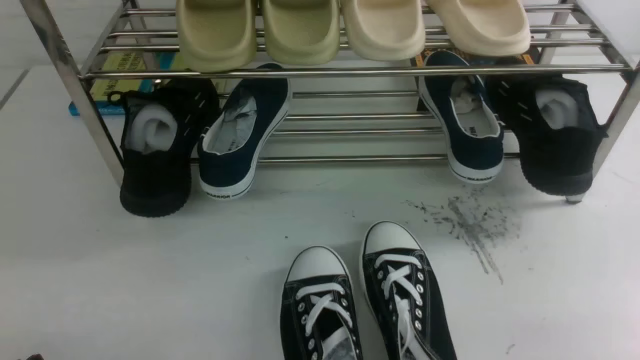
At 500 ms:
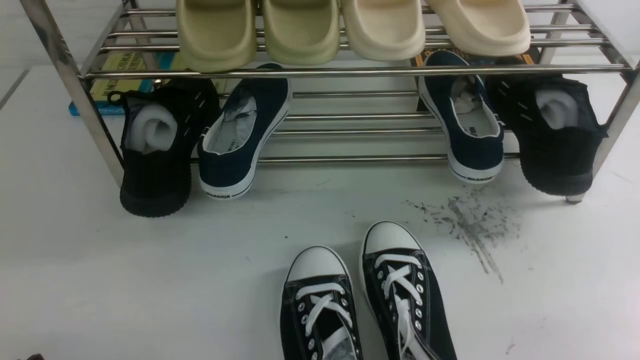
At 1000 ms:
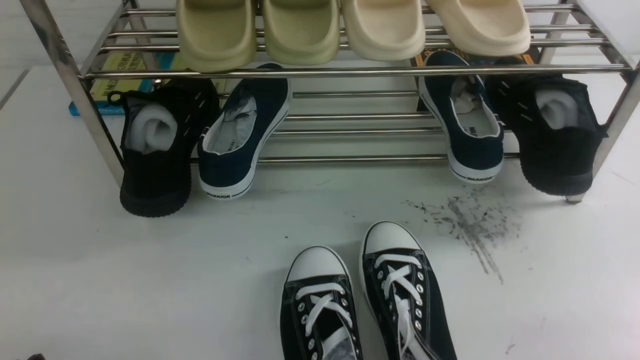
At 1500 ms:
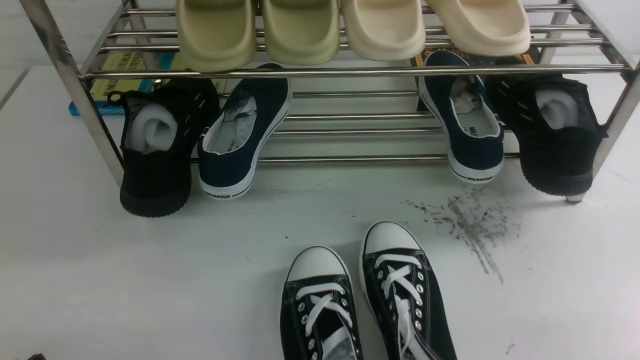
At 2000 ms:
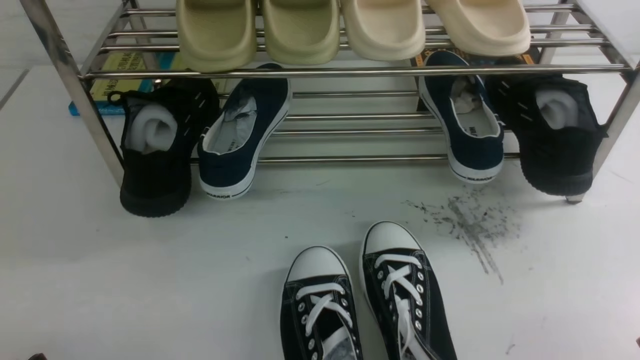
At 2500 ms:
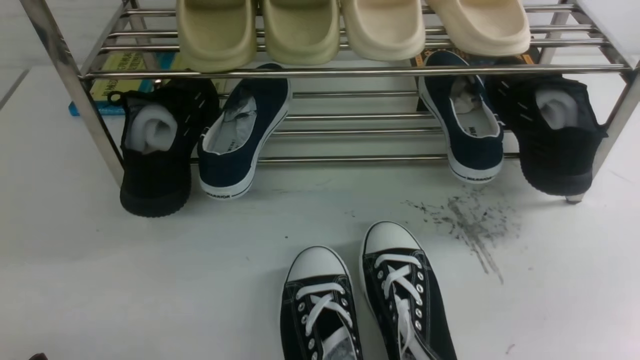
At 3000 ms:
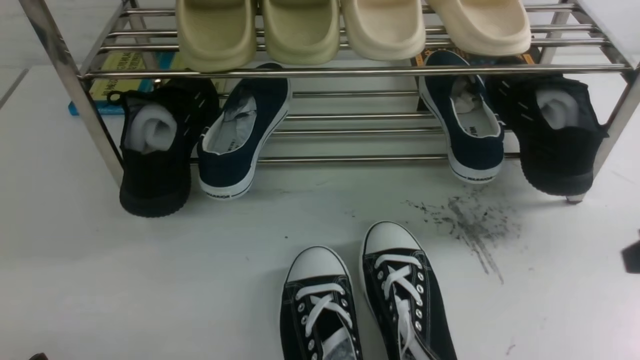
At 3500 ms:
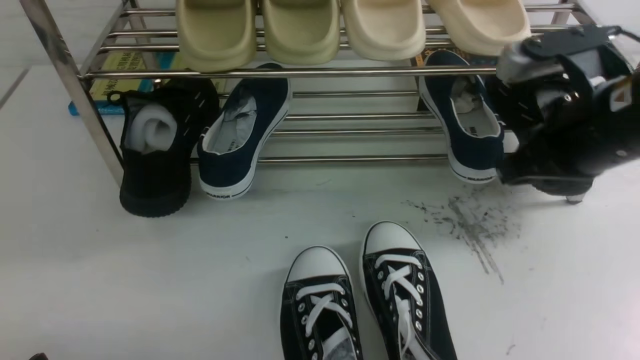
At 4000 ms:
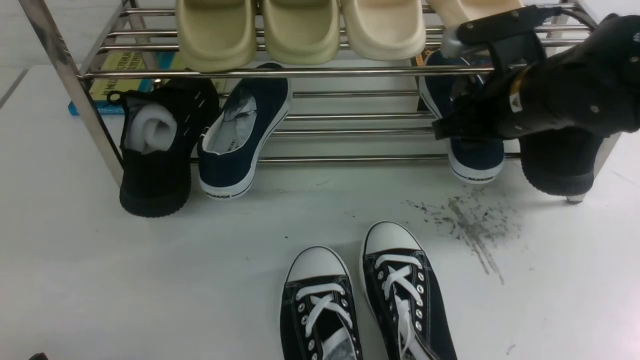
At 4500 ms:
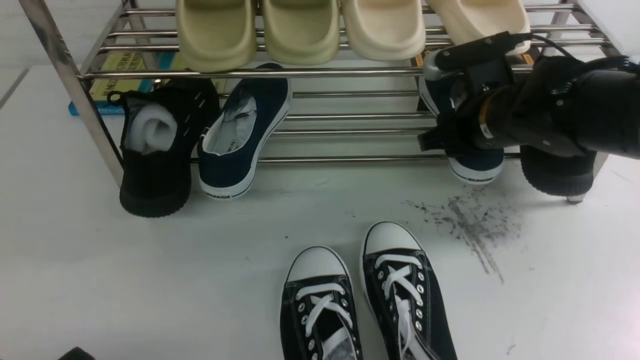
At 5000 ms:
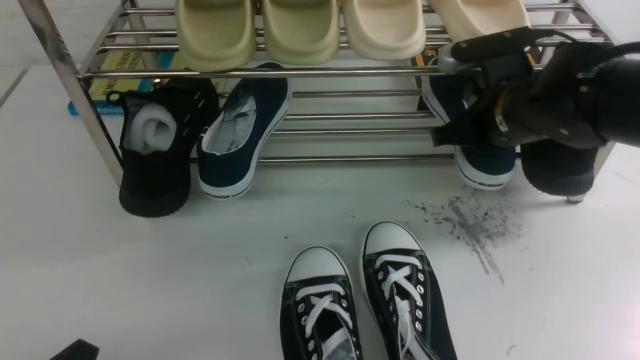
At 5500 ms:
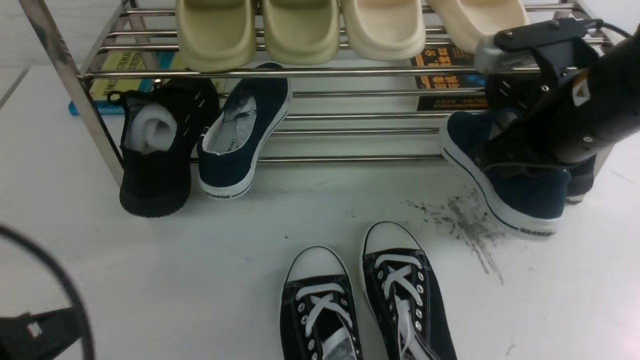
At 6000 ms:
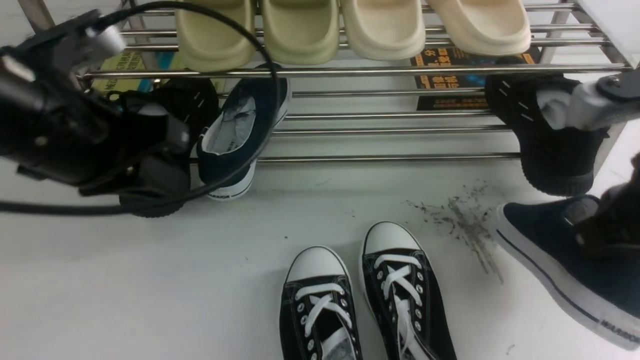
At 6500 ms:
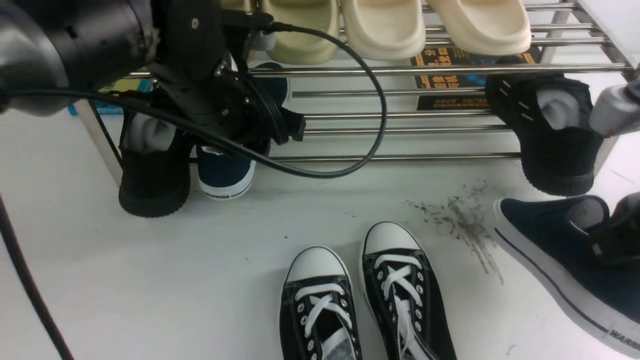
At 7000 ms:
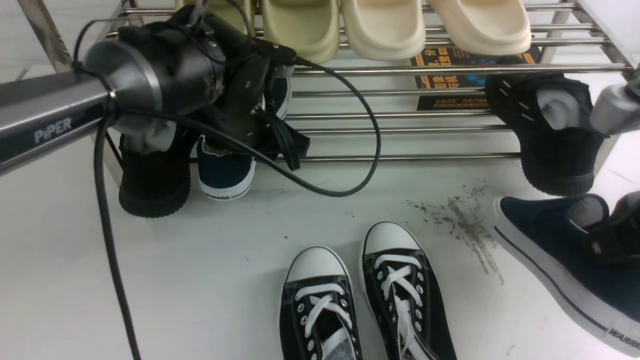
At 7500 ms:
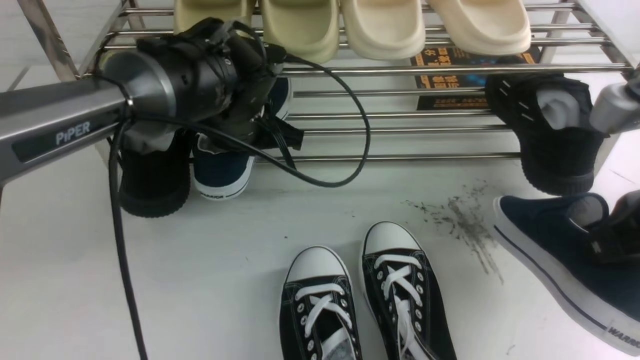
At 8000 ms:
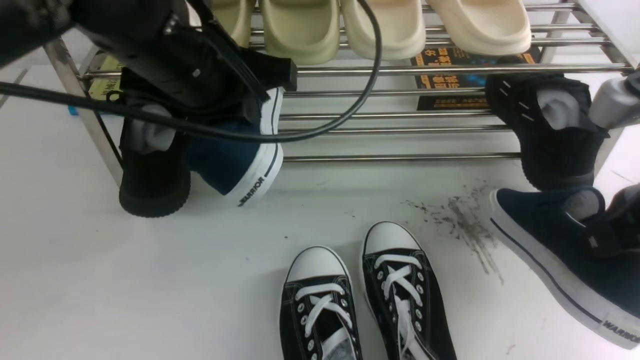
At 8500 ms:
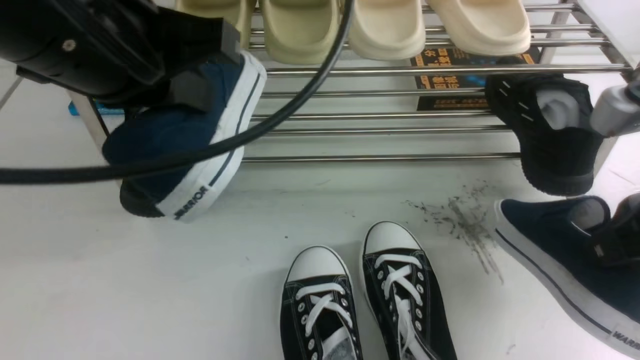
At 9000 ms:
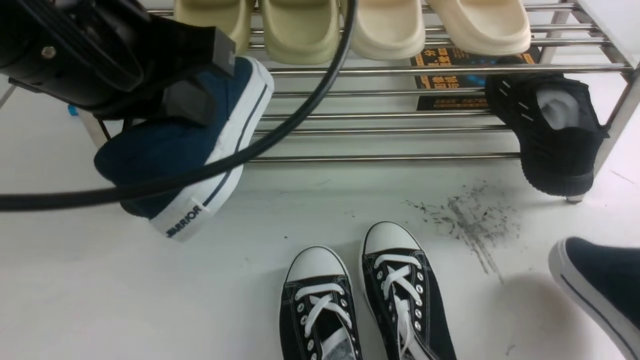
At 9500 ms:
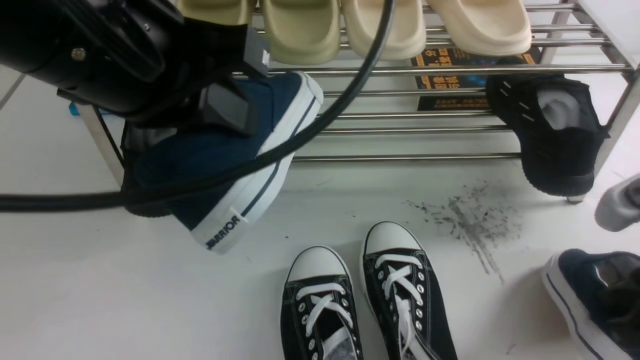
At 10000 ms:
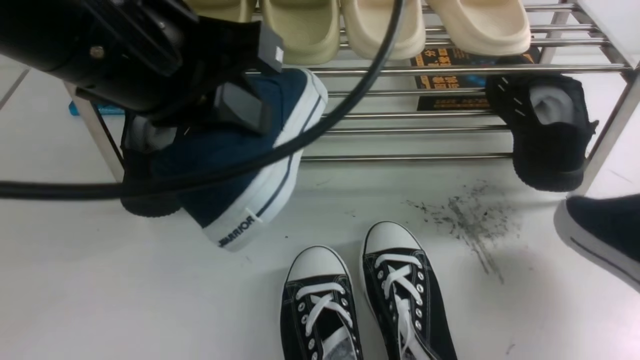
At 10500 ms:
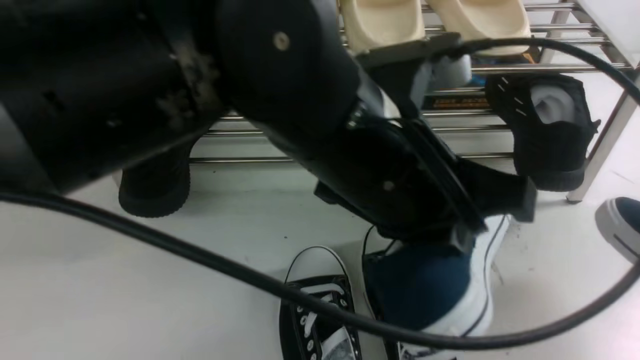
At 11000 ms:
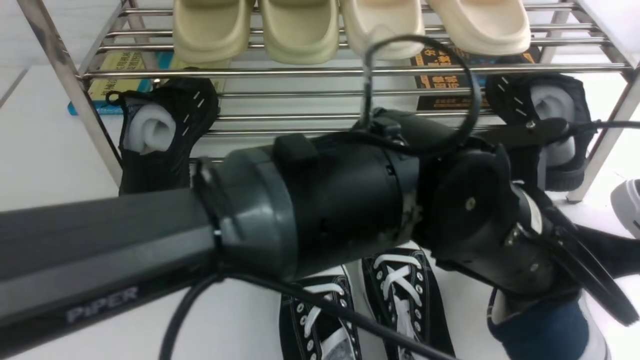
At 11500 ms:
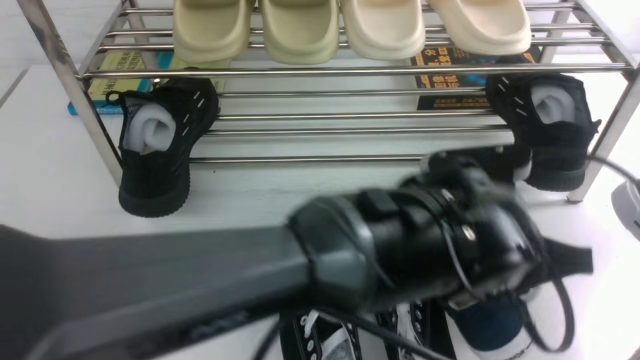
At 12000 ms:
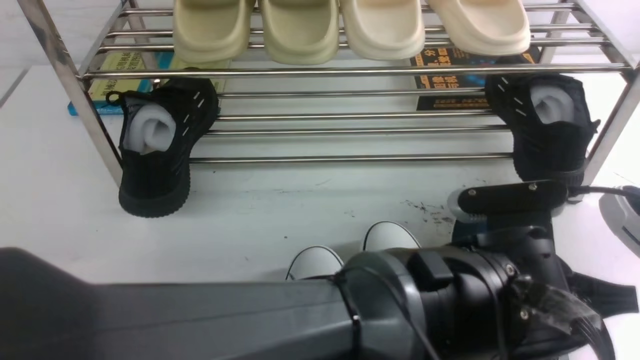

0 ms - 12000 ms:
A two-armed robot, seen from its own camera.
Step, 0 ms - 5000 ms: use the right arm to clamp a shoe on the right side of the shoe rack.
Step, 5500 ms - 8000 ms: use the left arm to clamp a shoe on the left side of the shoe rack.
2000 ms - 4000 ms: The right gripper goes roughly 30 cm forward and to the left, and opens up.
4000 ms - 6000 ms: The right gripper shifts about 15 cm backward and upward, and closes its fingers. The left gripper shifts roughly 30 cm forward, upward and to the right, and closes and opens again.
6000 ms - 8000 ms: The left gripper goes about 10 cm to the right, travels forward and back again, some 15 cm each way, and closes up.
8000 ms - 10000 ms: The left gripper is displaced backward by about 10 cm.
10000 ms - 12000 ms: The right gripper shifts about 10 cm backward. The left gripper goes about 30 cm to the right and downward.

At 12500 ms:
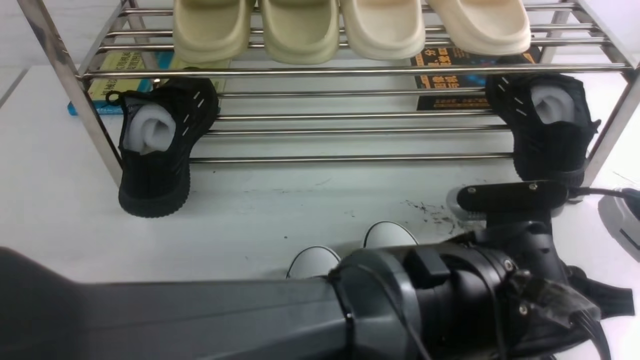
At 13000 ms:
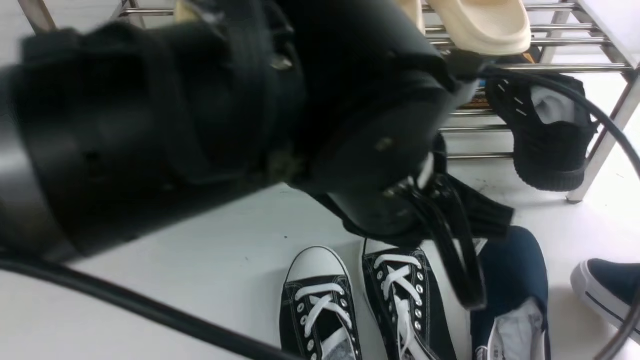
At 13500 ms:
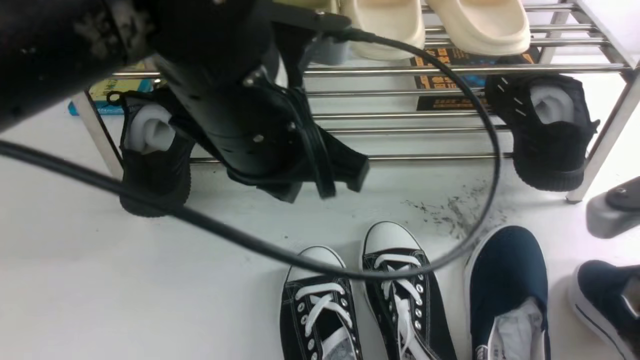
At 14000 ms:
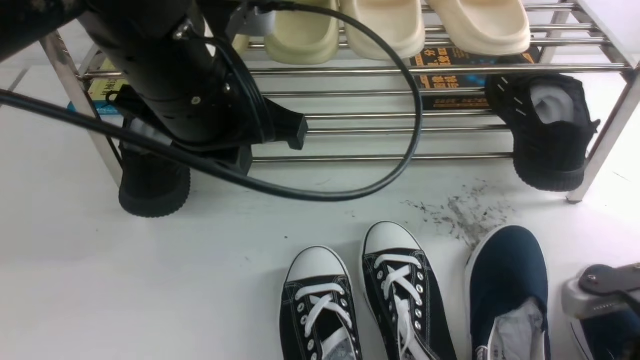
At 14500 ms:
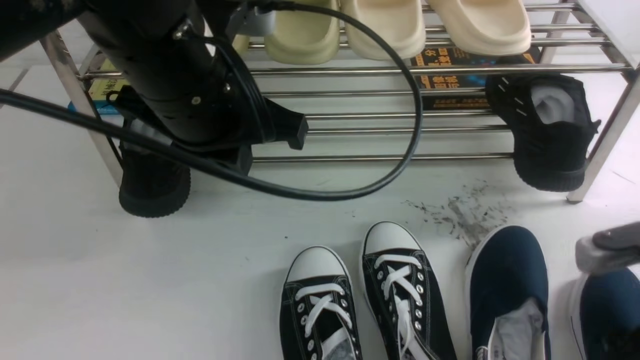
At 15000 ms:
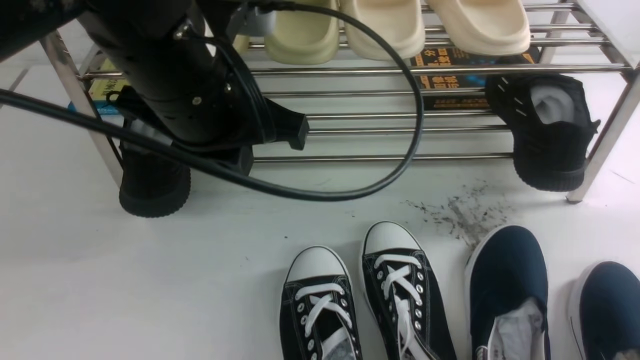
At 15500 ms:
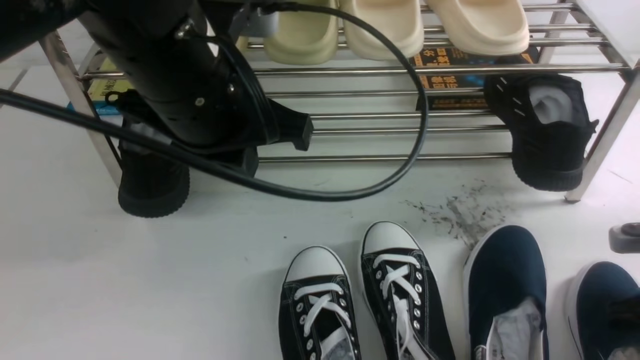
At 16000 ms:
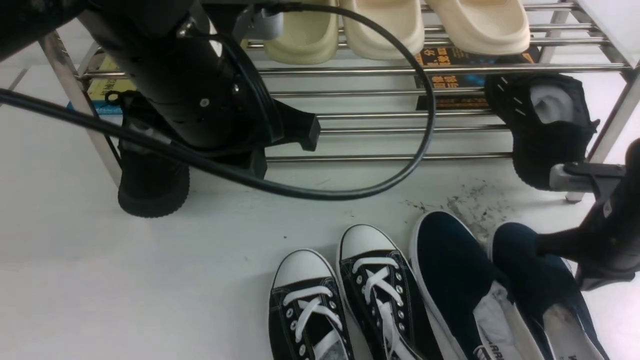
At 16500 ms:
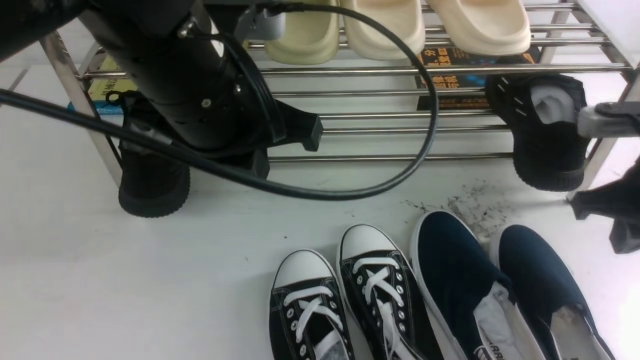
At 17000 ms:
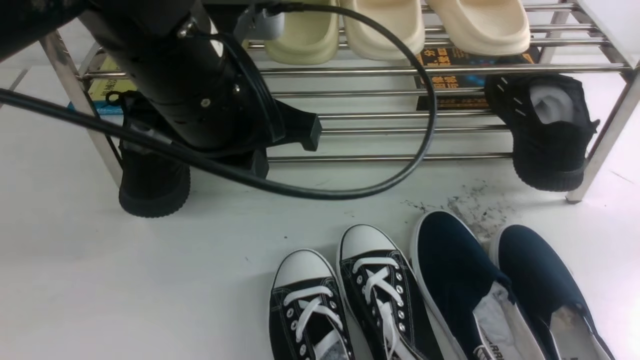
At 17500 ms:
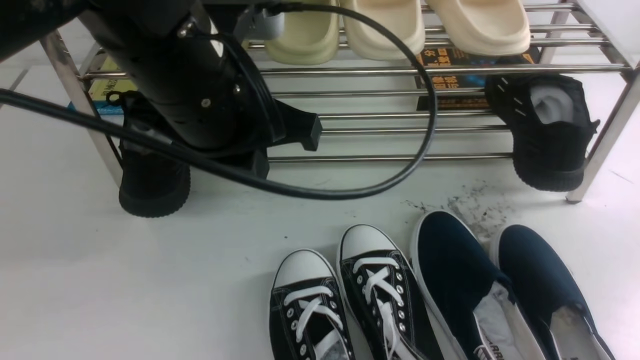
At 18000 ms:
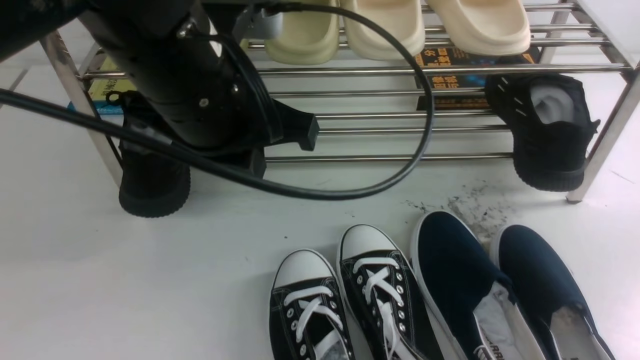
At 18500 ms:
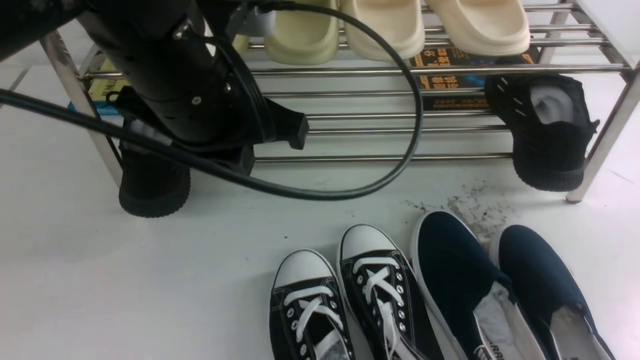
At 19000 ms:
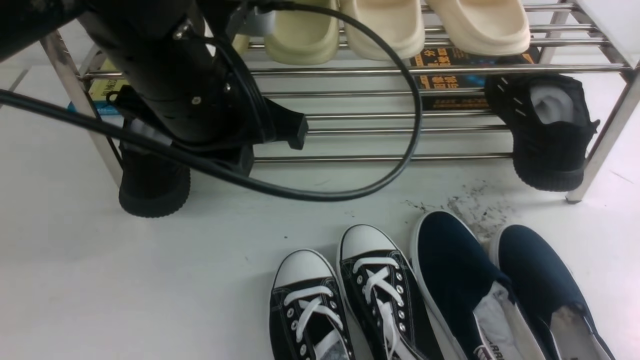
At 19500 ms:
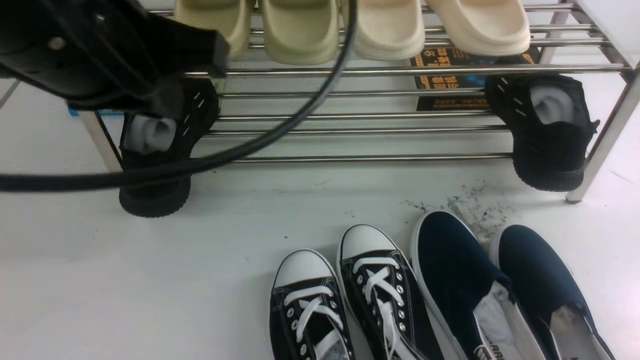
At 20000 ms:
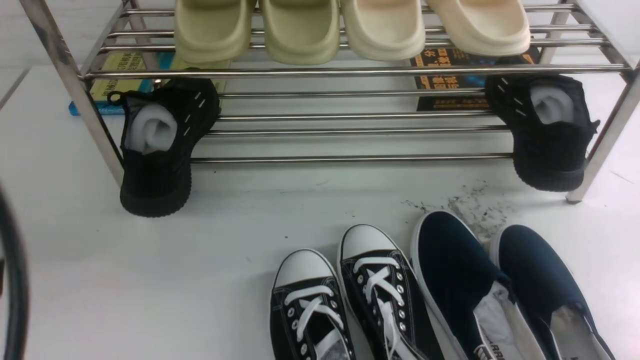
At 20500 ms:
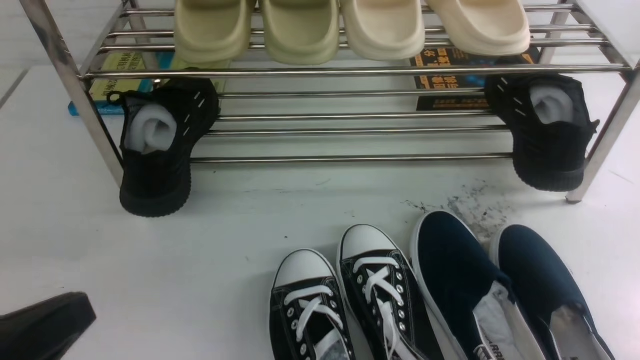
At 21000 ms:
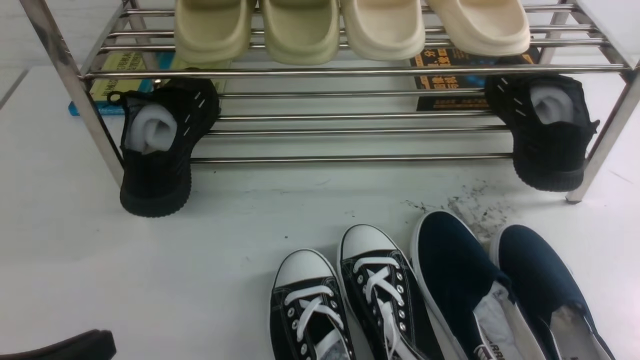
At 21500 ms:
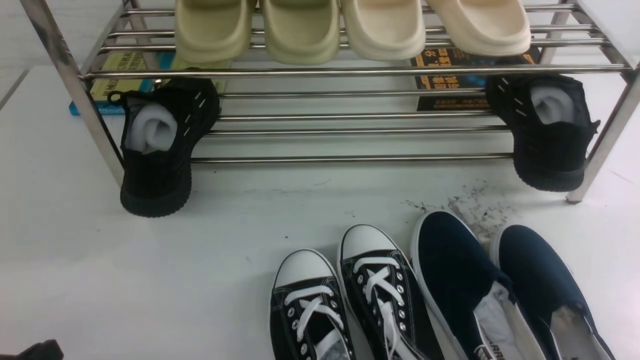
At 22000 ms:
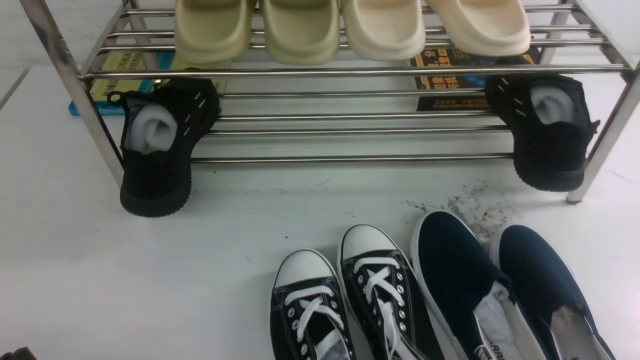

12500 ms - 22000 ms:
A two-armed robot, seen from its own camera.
Step, 13000 ms - 14500 ms: use the right arm to take out the clamped shoe from the shoe rack and put it down.
12500 ms - 14500 ms: The right gripper is displaced downward and forward by roughly 15 cm, and opens its fingers, while the left gripper shifts some 25 cm to the left, upward and forward, and closes its fingers.
14500 ms - 16500 ms: The right gripper goes about 10 cm forward, and closes.
16500 ms - 18000 ms: The right gripper heads backward, covering roughly 20 cm.
18000 ms - 20000 ms: The right gripper is displaced downward by roughly 15 cm. The left gripper goes some 25 cm backward and to the left.
20000 ms - 22000 ms: The left gripper shifts some 25 cm downward.
